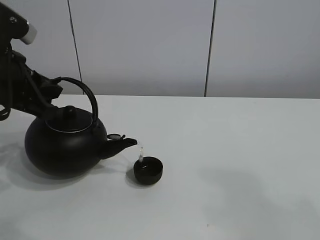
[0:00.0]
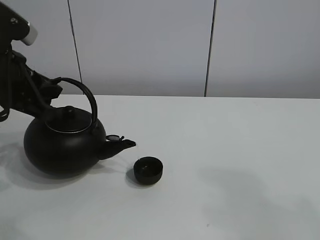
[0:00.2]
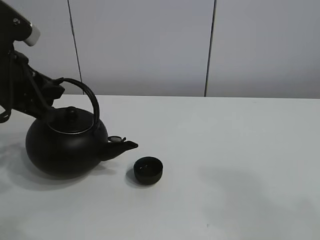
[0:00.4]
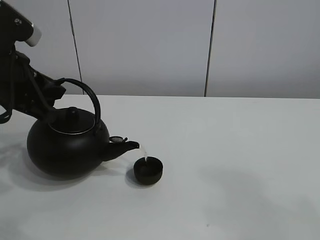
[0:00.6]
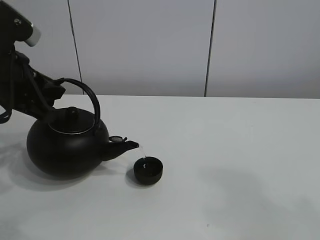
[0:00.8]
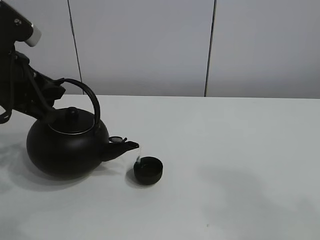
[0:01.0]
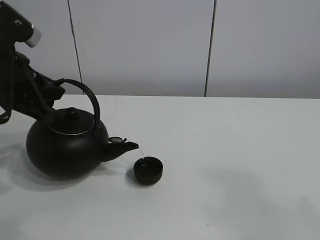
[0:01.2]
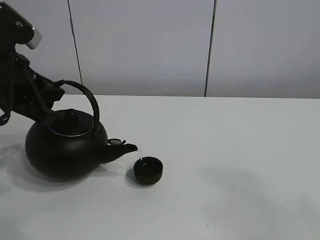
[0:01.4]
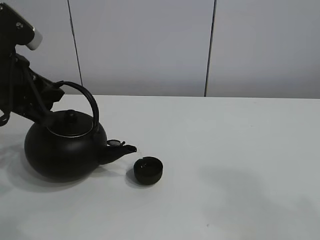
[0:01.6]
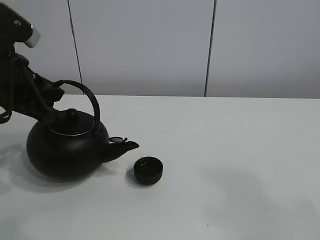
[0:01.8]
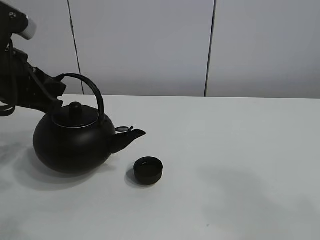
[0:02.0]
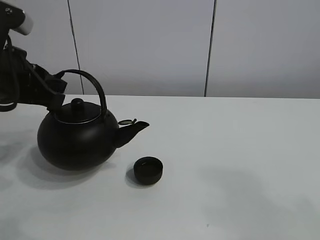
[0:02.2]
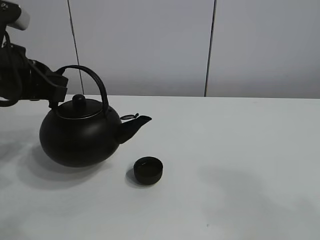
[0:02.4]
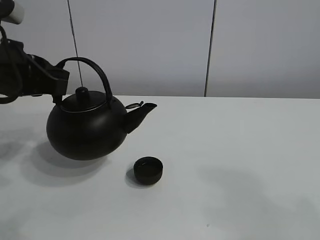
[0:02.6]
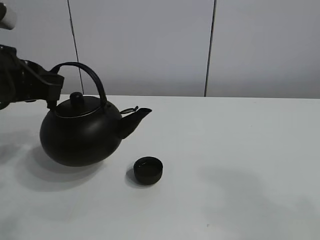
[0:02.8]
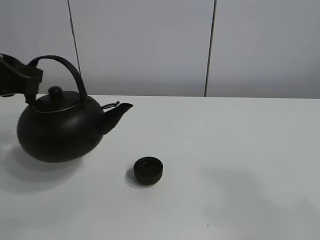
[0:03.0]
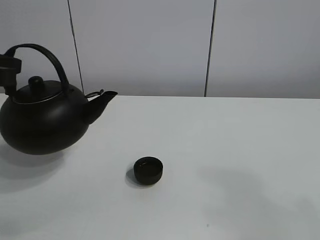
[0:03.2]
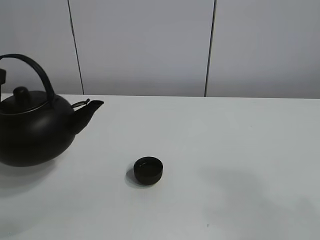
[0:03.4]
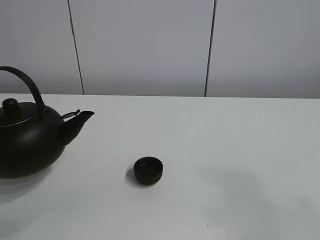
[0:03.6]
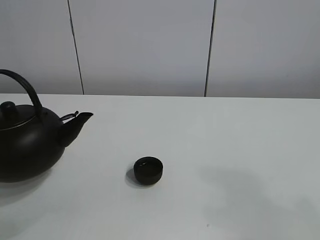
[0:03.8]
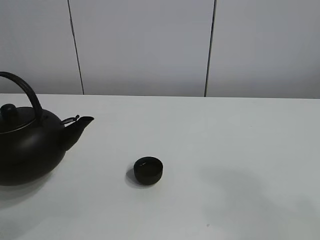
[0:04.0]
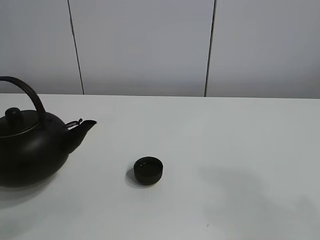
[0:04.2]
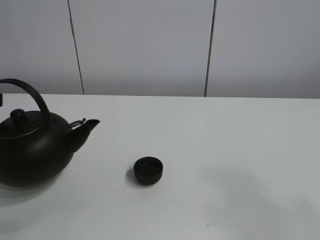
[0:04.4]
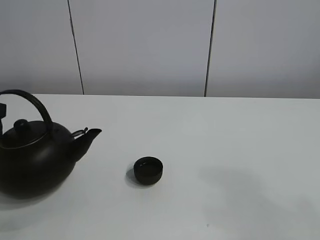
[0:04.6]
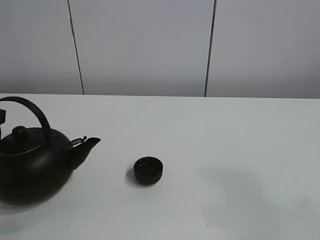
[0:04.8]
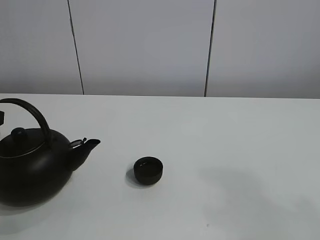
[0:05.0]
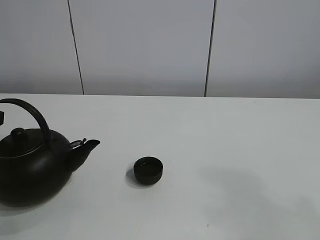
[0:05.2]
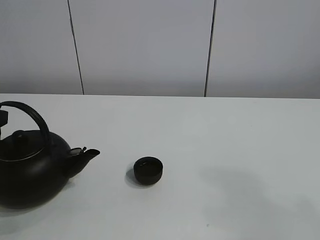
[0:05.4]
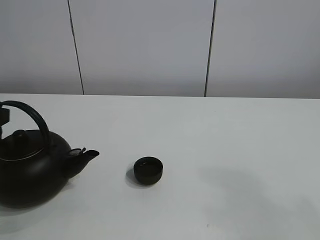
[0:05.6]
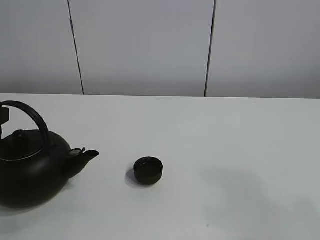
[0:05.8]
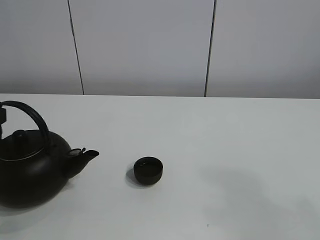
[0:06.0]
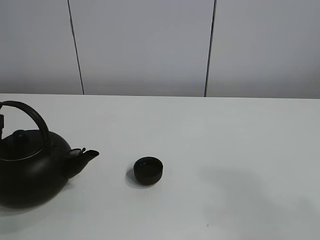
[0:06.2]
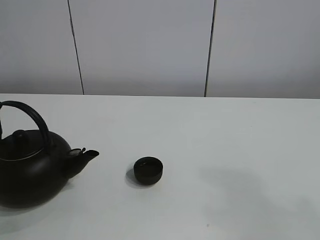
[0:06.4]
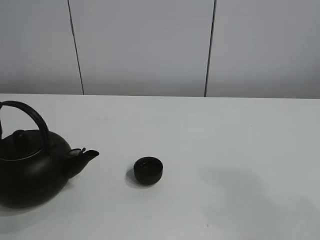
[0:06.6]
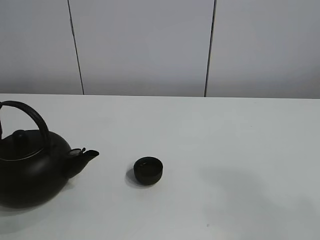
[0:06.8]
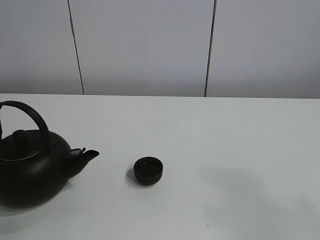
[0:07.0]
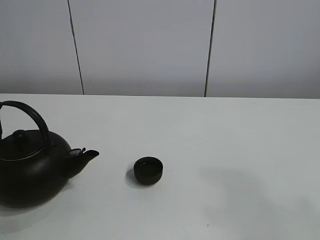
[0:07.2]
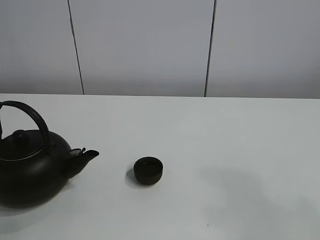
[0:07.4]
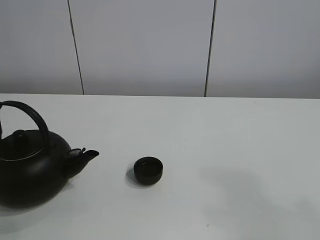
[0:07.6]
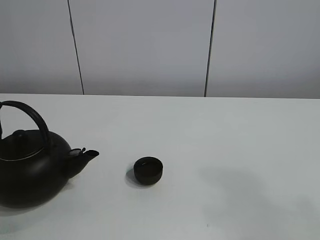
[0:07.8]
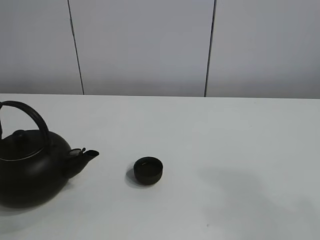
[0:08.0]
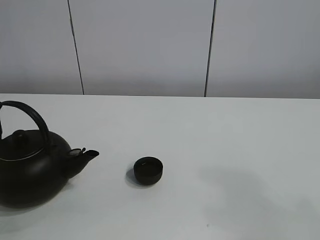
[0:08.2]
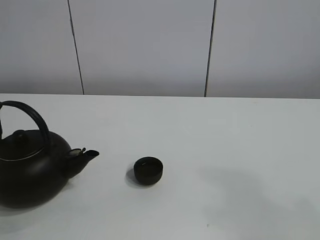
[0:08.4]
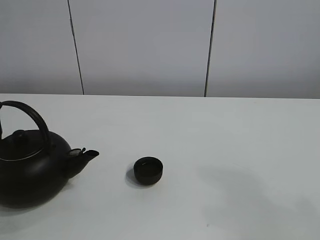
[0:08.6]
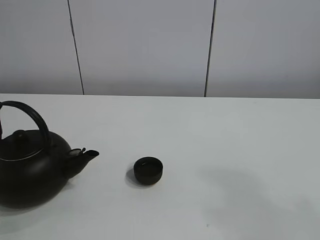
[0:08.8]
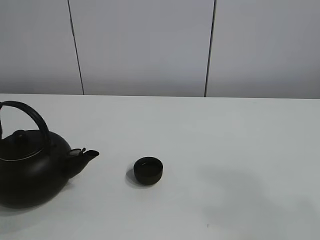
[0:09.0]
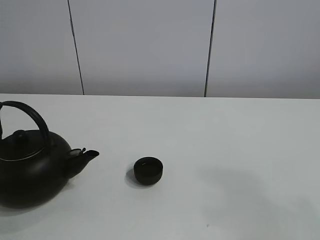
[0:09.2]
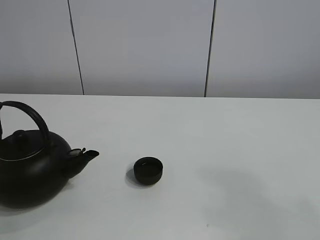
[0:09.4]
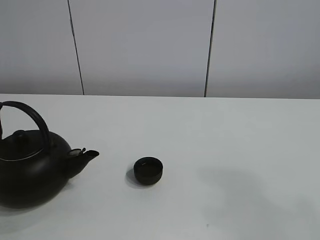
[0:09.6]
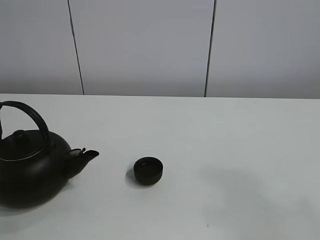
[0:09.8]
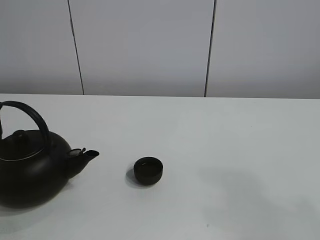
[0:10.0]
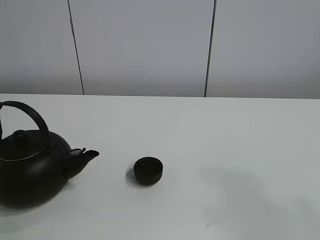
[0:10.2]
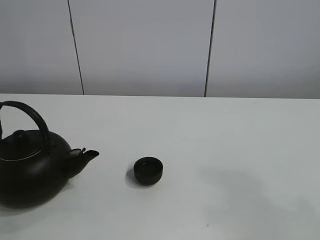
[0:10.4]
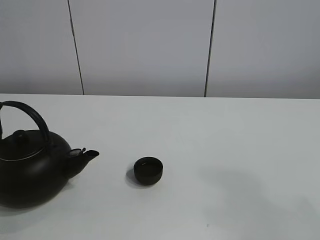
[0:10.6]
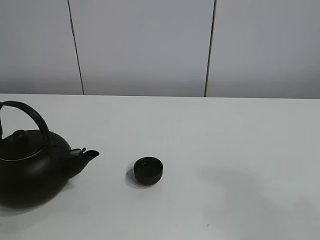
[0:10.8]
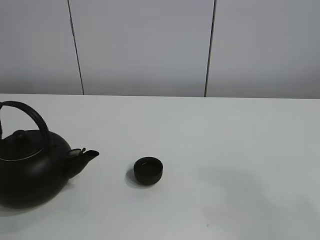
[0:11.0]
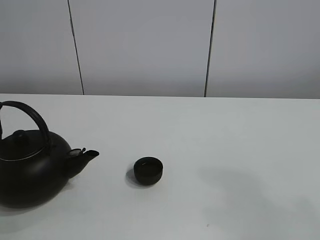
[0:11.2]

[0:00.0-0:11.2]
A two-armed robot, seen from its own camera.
Task of the whole recording: pour tea into the teacup.
0:00.0 to 0:01.6: Neither gripper changes place.
0:01.6 to 0:03.2: The left gripper shifts by roughly 5 cm.
0:03.2 to 0:04.8: The left gripper goes roughly 5 cm downward.
0:04.8 to 0:06.4: The left gripper opens up.

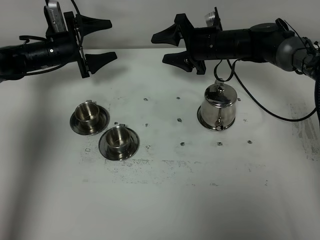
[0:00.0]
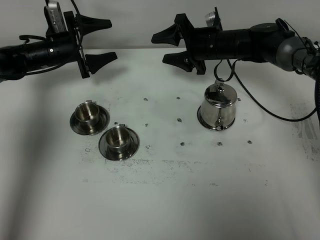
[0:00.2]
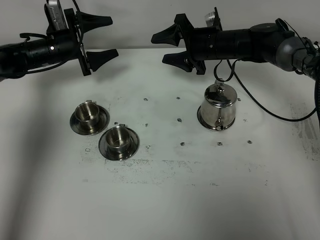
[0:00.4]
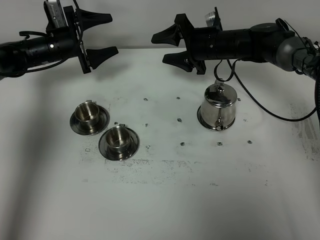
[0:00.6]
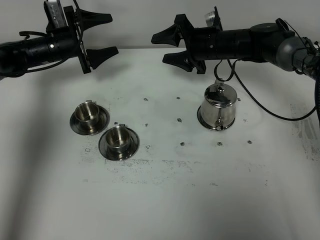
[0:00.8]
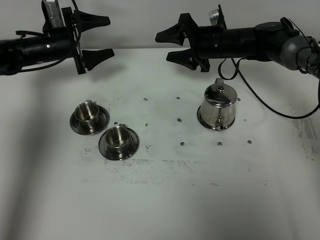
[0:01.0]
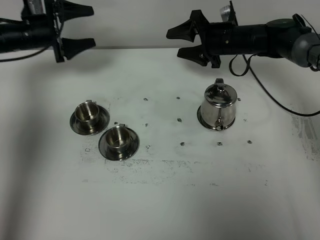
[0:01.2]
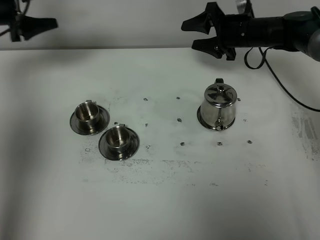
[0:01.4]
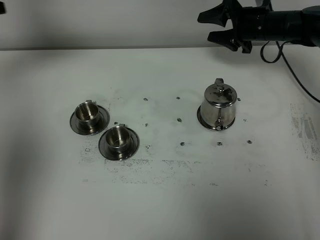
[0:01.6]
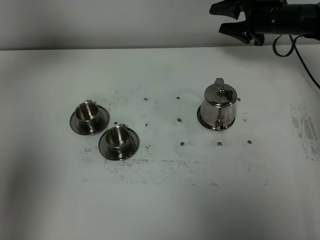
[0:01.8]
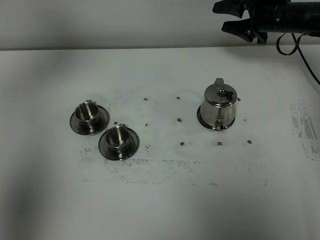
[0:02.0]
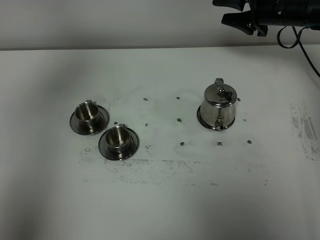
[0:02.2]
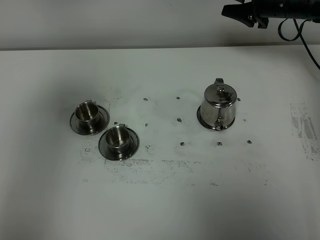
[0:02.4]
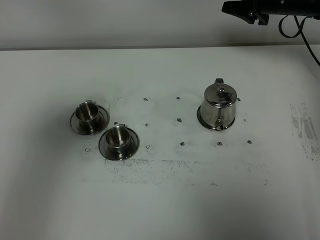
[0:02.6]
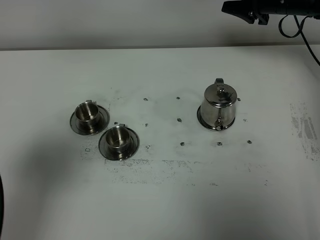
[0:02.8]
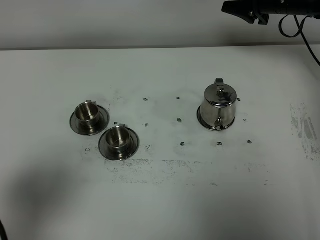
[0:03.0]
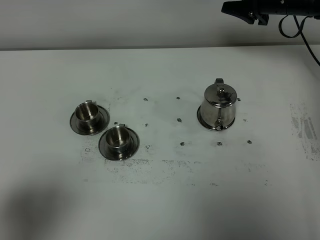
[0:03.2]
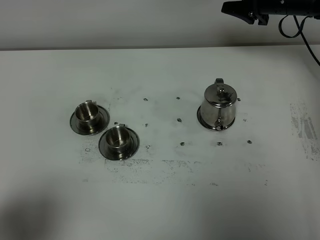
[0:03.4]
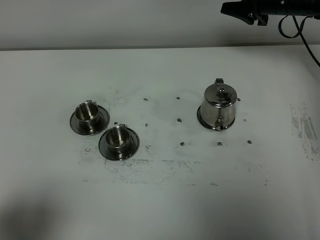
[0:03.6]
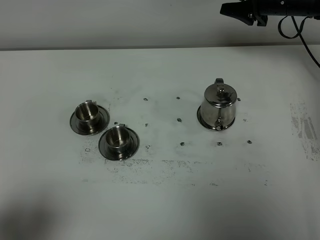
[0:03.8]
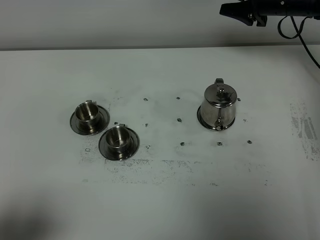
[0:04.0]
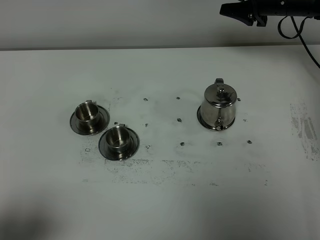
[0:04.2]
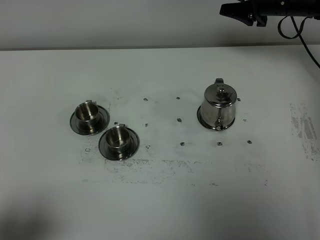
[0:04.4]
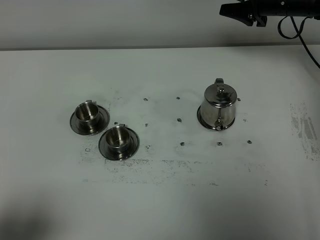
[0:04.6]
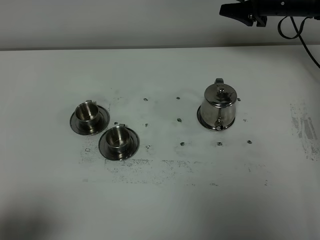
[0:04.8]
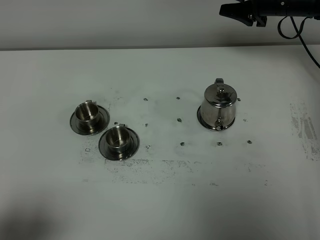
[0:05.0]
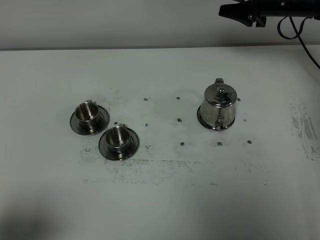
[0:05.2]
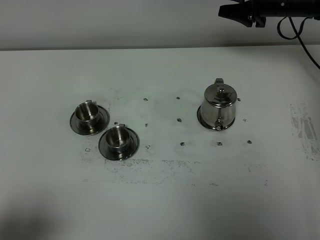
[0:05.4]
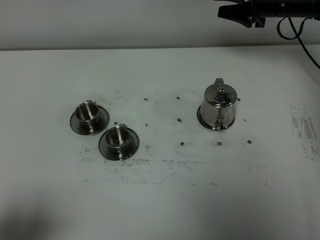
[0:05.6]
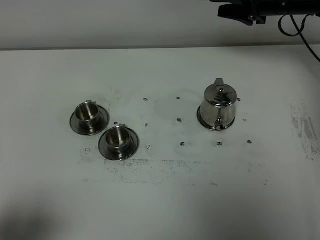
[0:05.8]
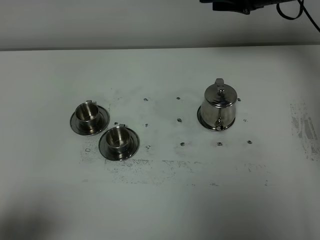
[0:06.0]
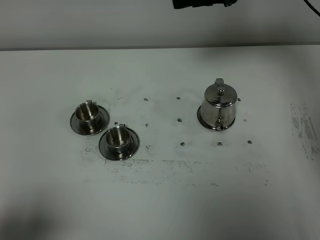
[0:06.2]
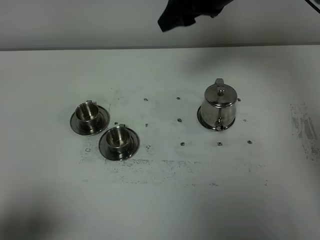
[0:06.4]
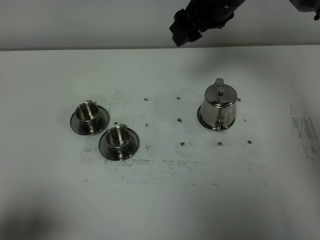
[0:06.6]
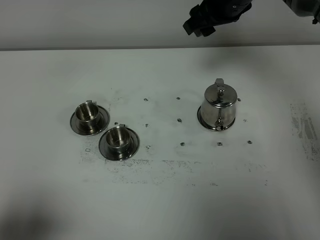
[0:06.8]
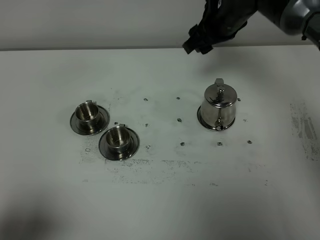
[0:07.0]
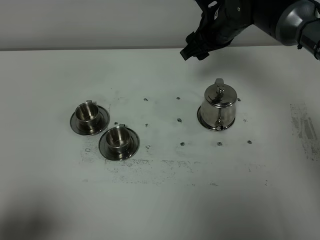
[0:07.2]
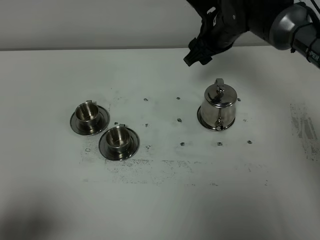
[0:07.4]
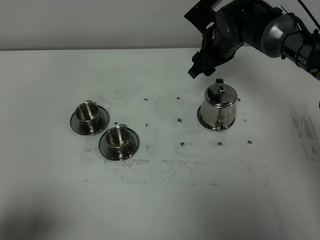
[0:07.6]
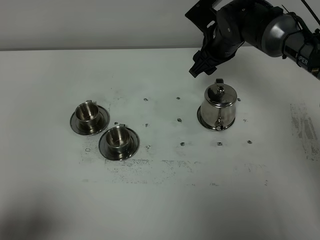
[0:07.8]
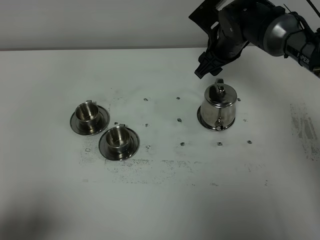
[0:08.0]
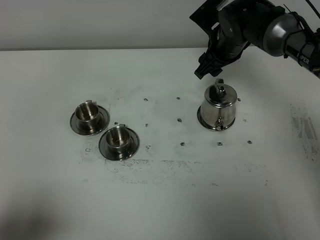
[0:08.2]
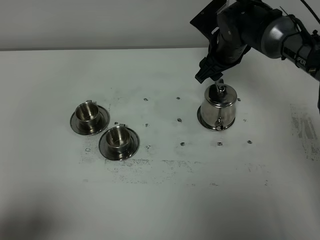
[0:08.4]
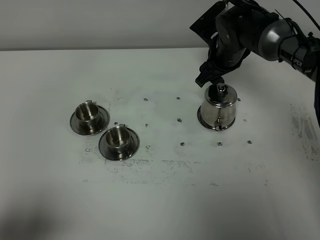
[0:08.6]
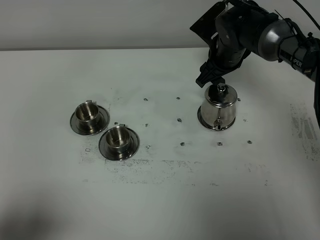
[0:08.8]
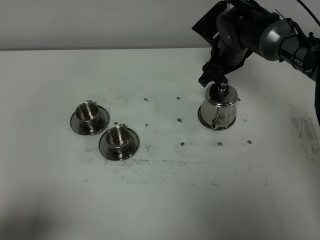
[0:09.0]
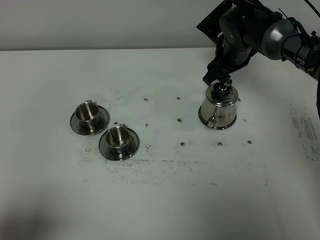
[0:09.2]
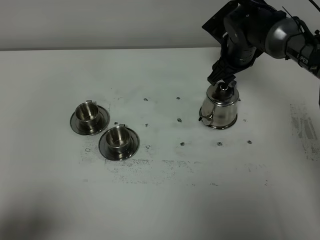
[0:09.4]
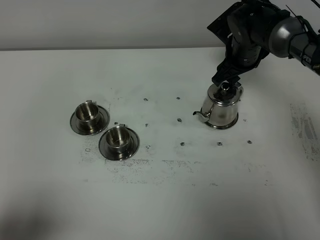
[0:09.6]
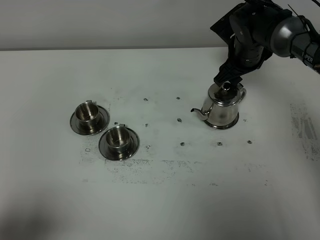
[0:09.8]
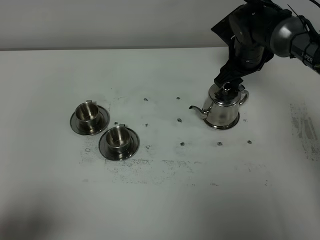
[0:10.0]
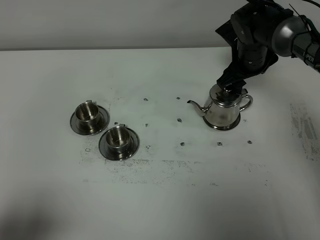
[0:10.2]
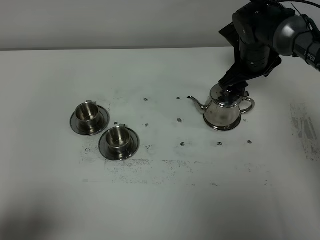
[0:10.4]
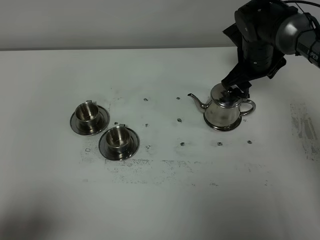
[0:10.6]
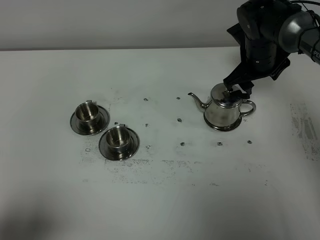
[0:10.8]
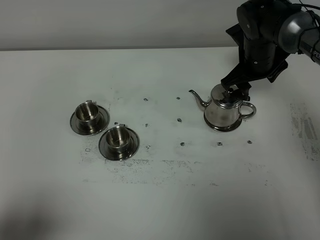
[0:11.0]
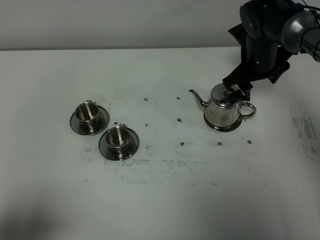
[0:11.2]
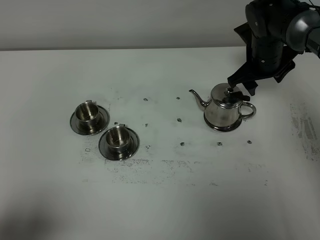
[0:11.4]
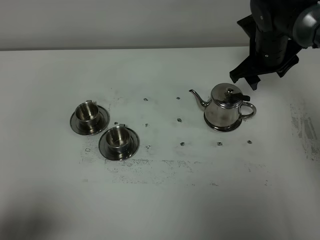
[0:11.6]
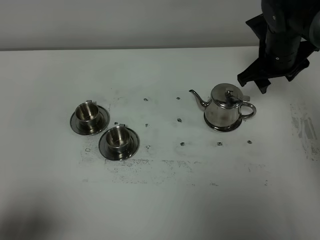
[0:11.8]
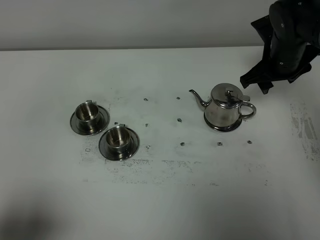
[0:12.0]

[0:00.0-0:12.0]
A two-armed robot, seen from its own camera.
Task of the whole recording: grasp the stainless steel teapot and pour the tea into the two stainless steel teacups one by one, put the stainless steel teapot back in its original place.
0:00.0 to 0:01.6: The left gripper shifts roughly 25 cm upward and to the left, and closes. Meanwhile the right gripper is displaced to the right by about 10 cm.
0:01.6 to 0:03.0: The right gripper shifts approximately 5 cm upward. The left gripper moves backward, some 35 cm.
0:03.0 to 0:04.4: The left gripper shifts about 5 cm backward.
0:04.4 to 0:06.0: The right gripper changes place by roughly 5 cm.
0:06.0 to 0:07.6: The right gripper goes roughly 10 cm downward and to the left.
0:07.6 to 0:09.0: The grippers make only small movements.
0:09.0 to 0:10.4: The grippers make only small movements.
0:10.4 to 0:12.0: The right gripper shifts by roughly 5 cm.
